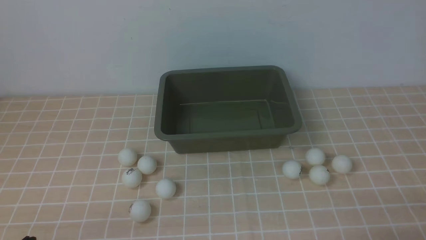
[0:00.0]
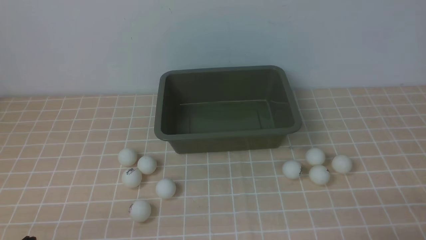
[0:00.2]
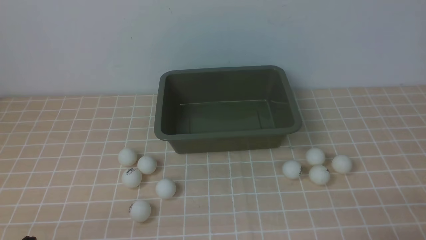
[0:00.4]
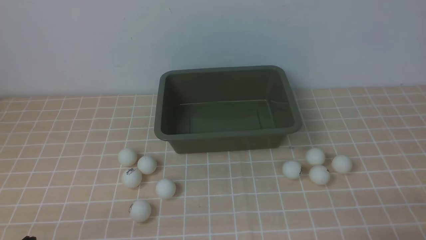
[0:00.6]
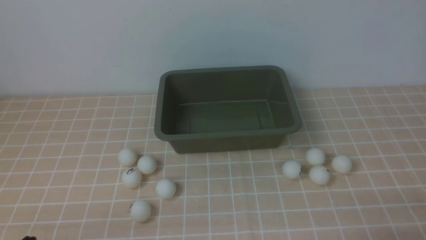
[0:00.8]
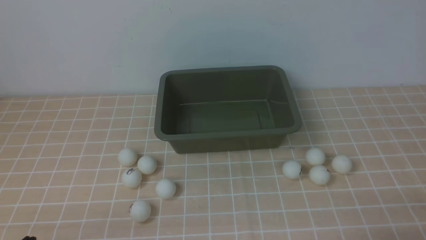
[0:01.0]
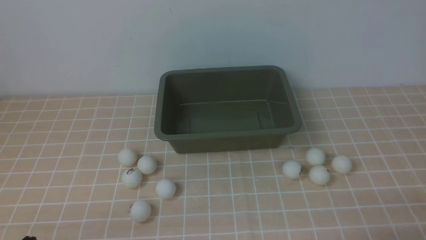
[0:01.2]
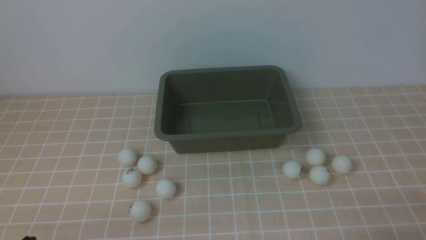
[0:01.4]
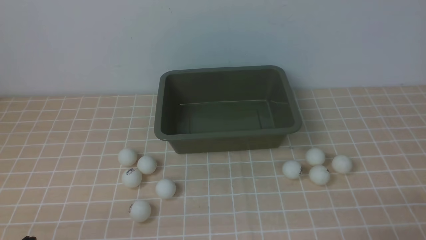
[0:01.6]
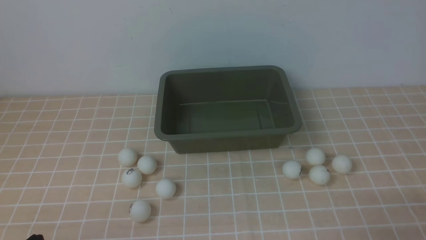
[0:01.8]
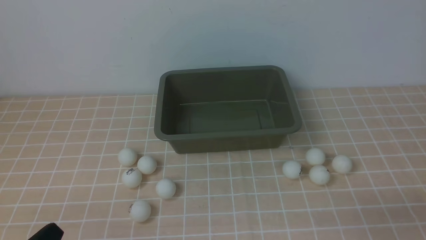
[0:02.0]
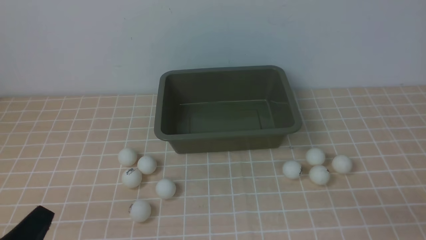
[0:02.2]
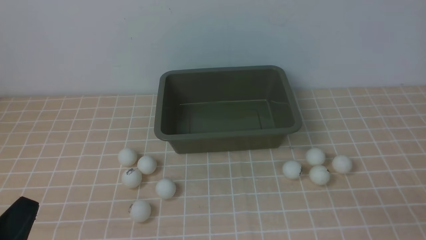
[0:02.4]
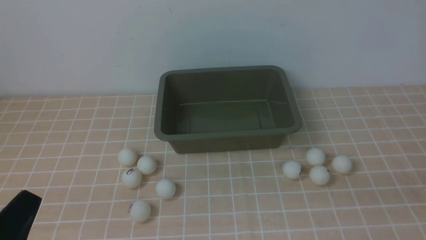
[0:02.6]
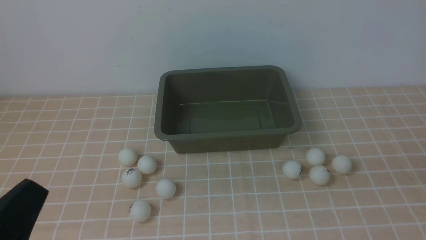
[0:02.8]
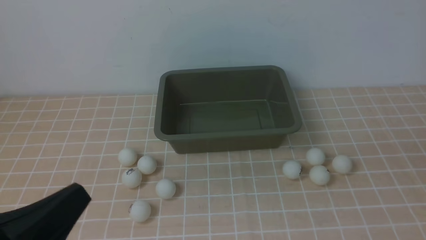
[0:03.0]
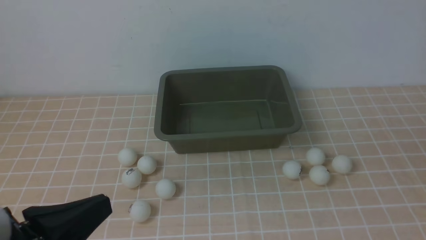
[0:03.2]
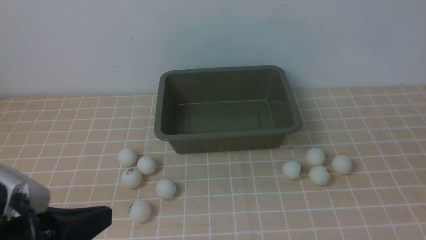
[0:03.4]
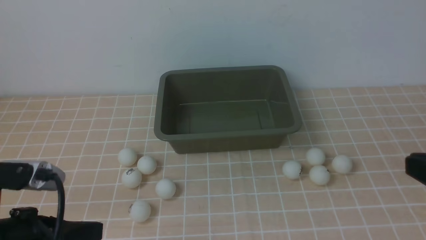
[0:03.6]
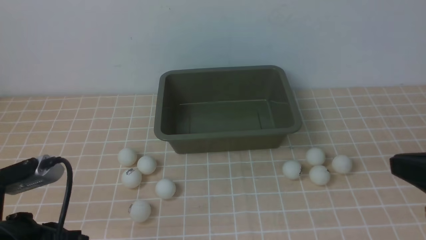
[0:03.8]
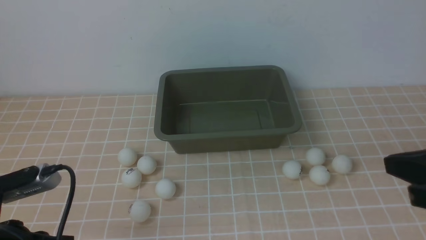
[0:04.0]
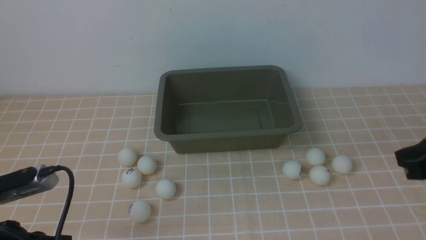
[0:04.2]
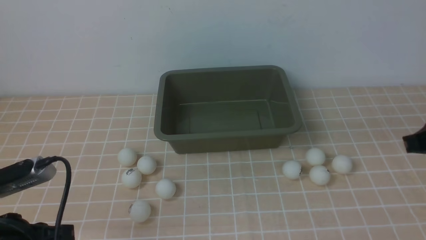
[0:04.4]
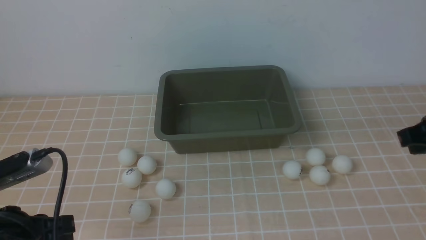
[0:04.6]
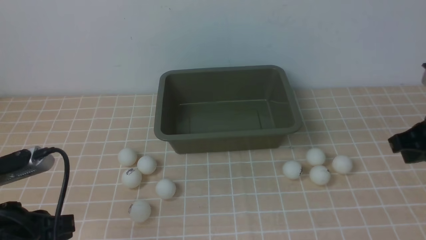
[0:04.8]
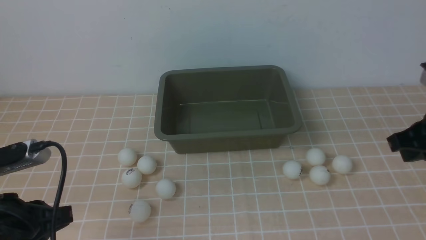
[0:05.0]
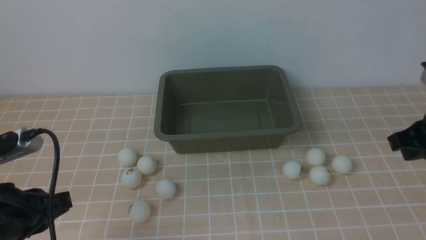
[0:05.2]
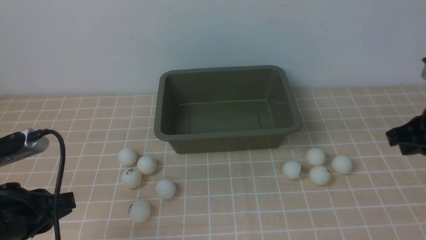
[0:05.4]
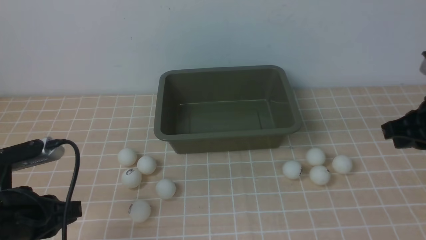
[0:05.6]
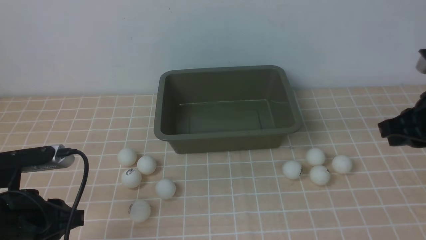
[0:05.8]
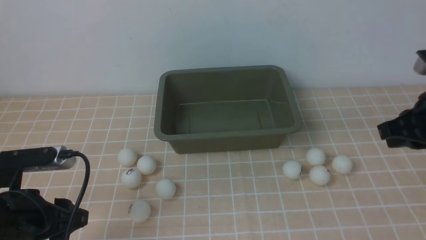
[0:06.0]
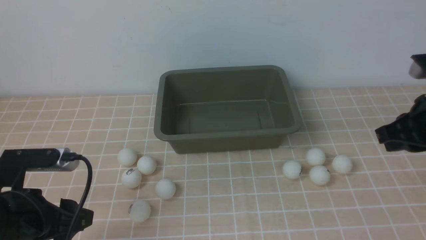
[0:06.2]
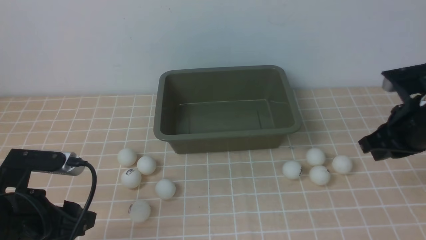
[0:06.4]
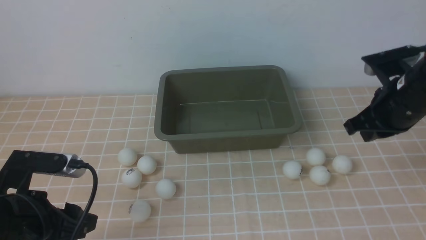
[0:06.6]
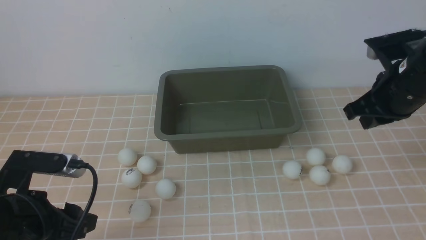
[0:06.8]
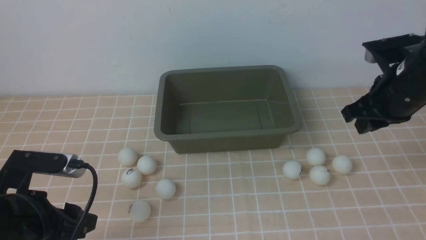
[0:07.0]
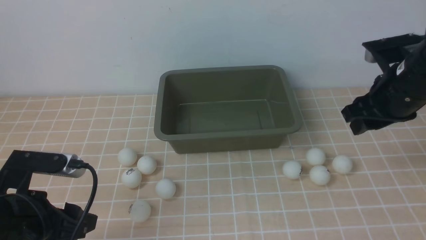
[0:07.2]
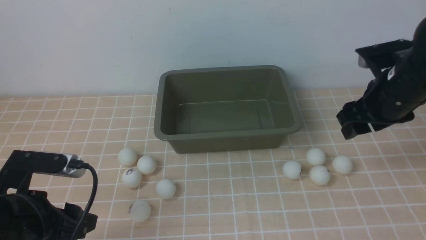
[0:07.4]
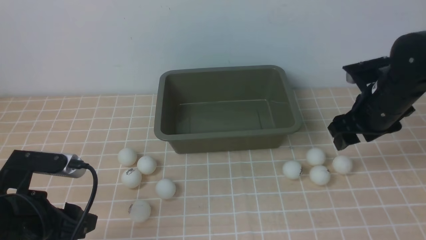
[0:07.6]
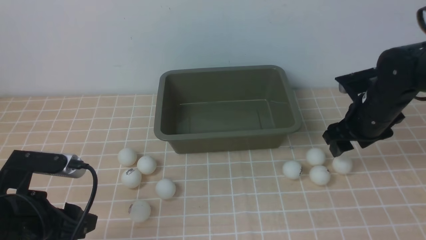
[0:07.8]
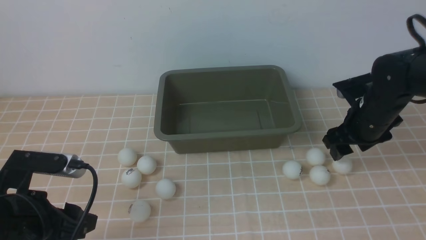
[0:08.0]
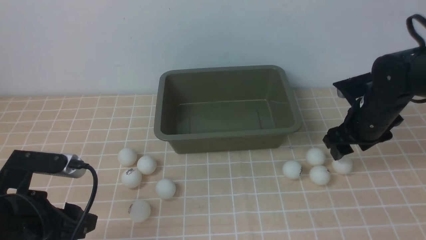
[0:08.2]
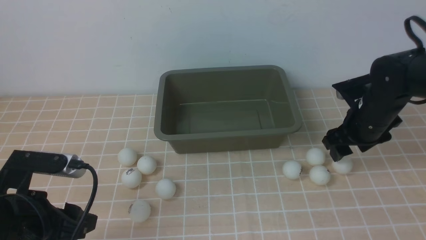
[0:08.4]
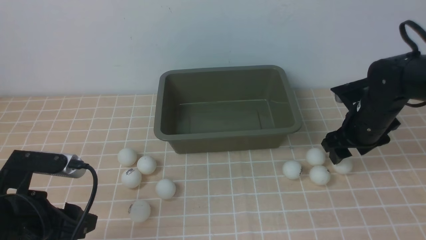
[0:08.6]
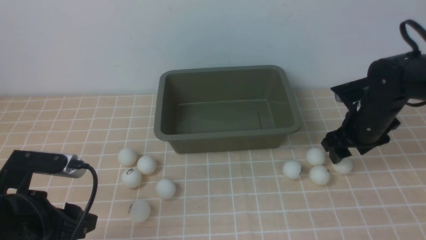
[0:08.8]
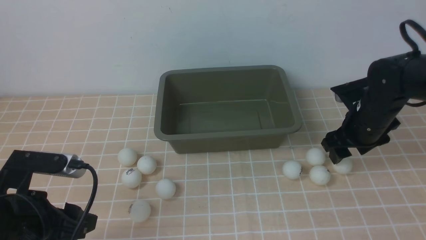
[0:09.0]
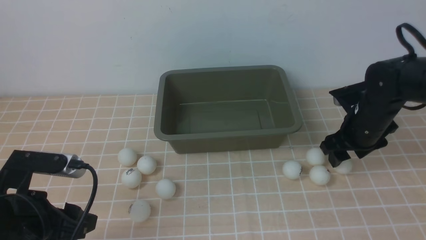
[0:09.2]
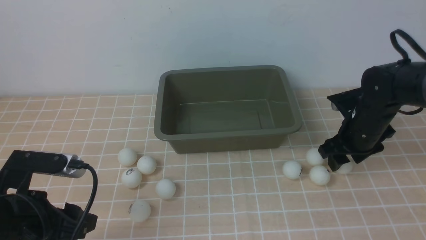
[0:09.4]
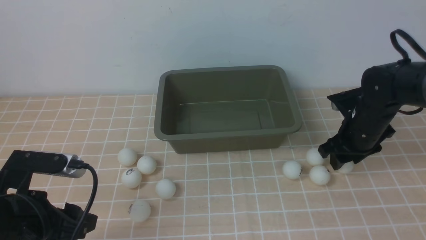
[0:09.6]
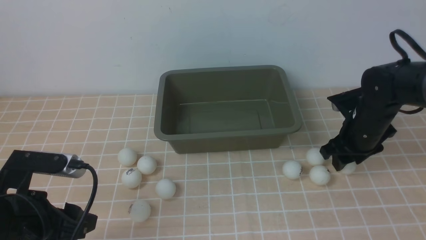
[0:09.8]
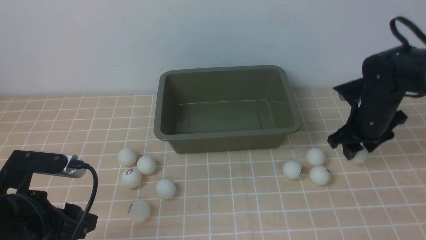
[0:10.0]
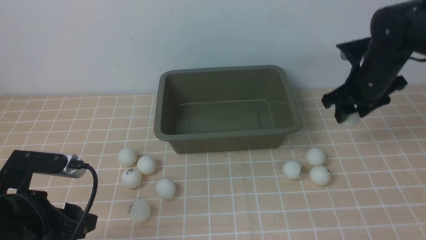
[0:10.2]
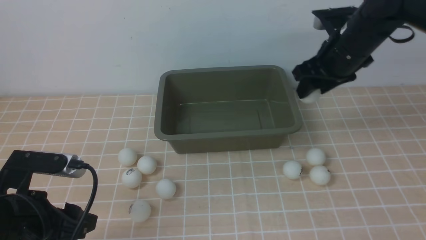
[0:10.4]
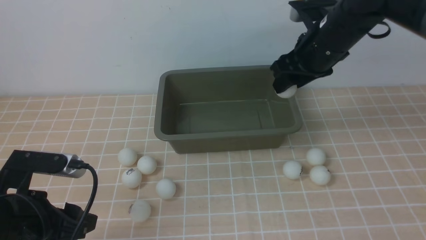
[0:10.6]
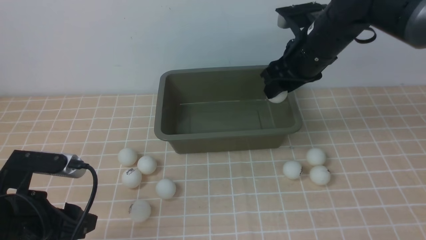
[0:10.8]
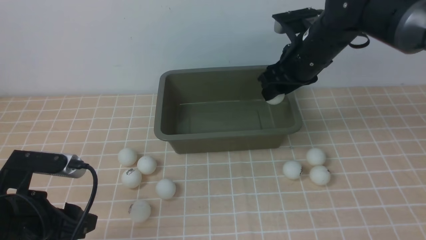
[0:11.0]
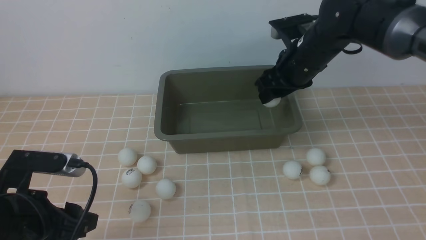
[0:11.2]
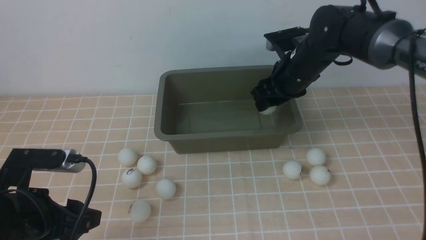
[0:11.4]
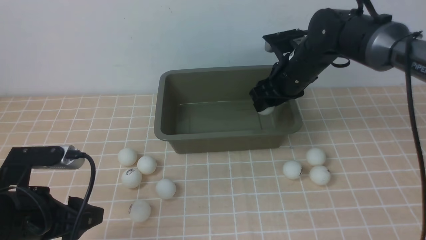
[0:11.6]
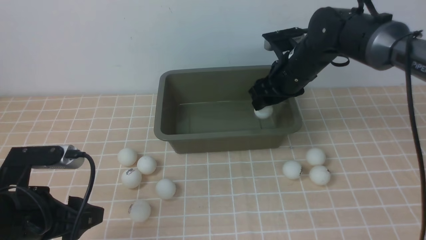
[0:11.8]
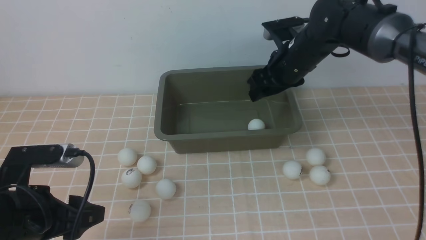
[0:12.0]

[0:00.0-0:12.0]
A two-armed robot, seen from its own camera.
Step, 0:00.0 to 0:10.2: use the right arm to clamp the table tennis ball closest to it.
0:01.6 to 0:03.0: The left gripper goes some 10 cm upward.
0:03.0 to 0:04.4: The left gripper shifts about 10 cm forward.
0:04.4 to 0:06.0: The left gripper opens its fingers, while the right gripper goes some 5 cm forward.
0:06.0 to 0:07.6: The right gripper goes roughly 10 cm forward, and opens, while the left gripper opens its fingers.
0:07.6 to 0:09.0: The right gripper shifts about 5 cm downward.
0:09.0 to 0:10.4: The right gripper travels upward by some 10 cm.
0:10.4 to 0:12.0: The right gripper travels to the left by about 10 cm.

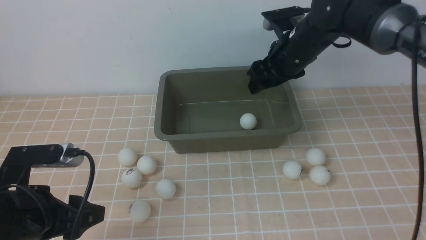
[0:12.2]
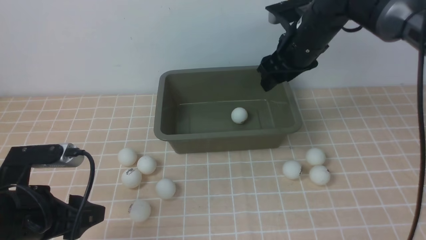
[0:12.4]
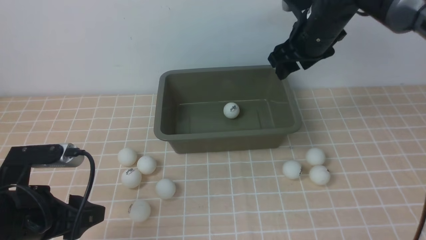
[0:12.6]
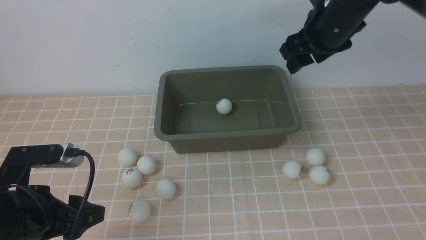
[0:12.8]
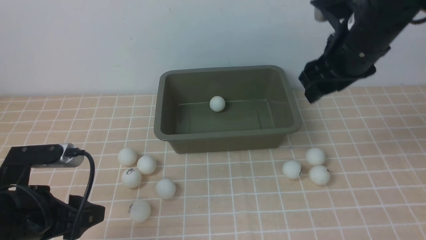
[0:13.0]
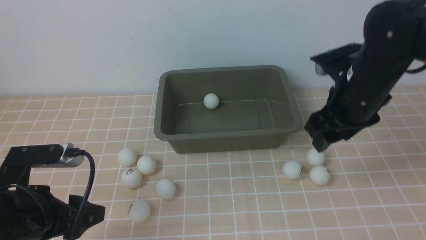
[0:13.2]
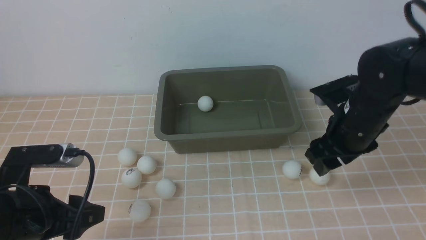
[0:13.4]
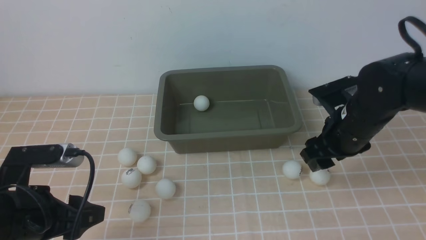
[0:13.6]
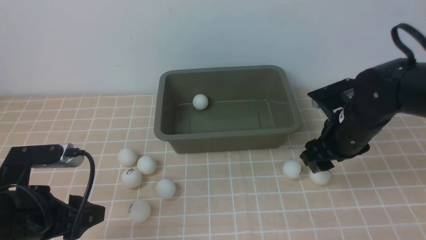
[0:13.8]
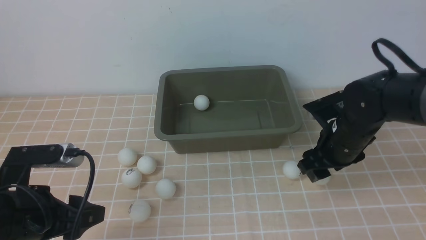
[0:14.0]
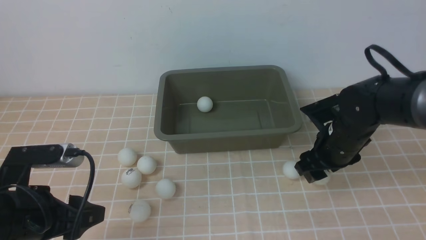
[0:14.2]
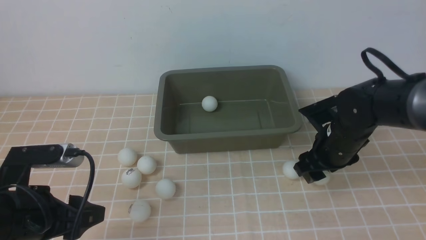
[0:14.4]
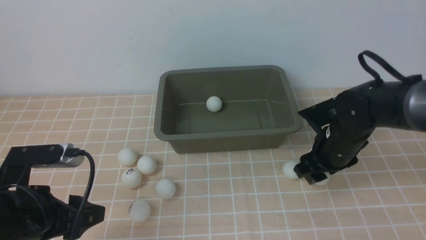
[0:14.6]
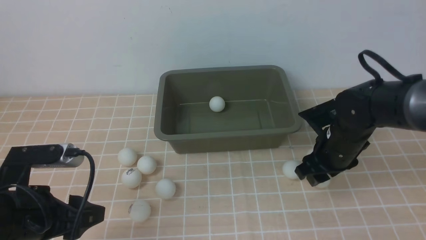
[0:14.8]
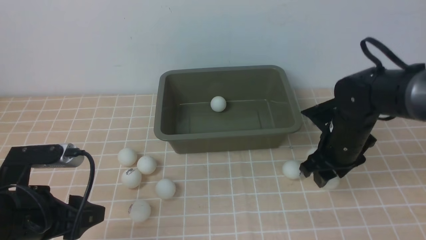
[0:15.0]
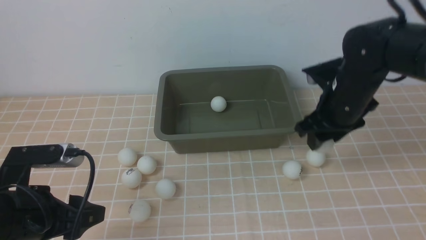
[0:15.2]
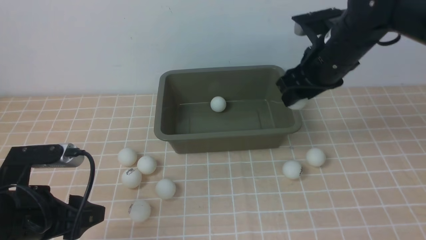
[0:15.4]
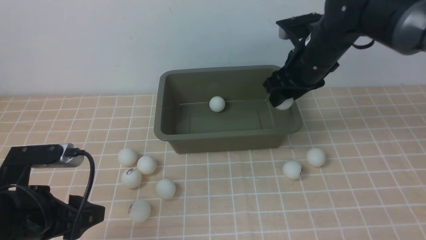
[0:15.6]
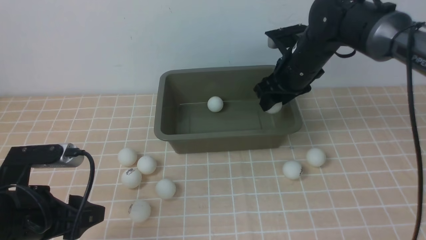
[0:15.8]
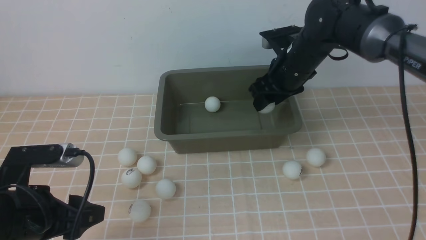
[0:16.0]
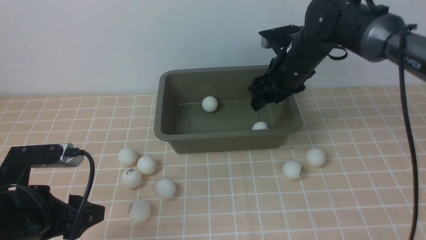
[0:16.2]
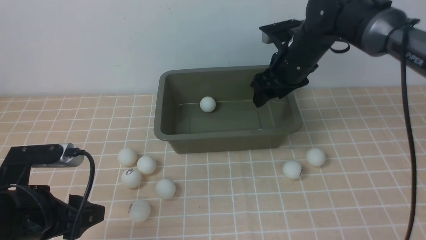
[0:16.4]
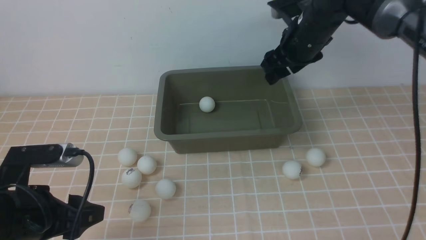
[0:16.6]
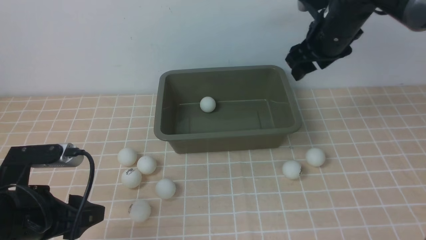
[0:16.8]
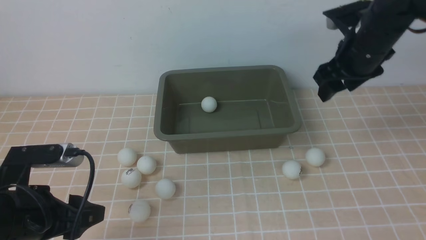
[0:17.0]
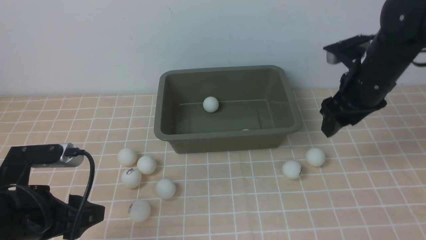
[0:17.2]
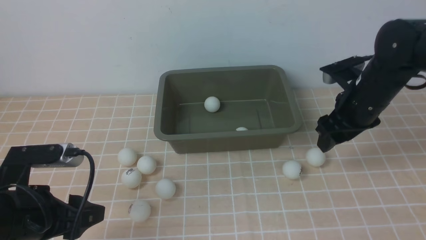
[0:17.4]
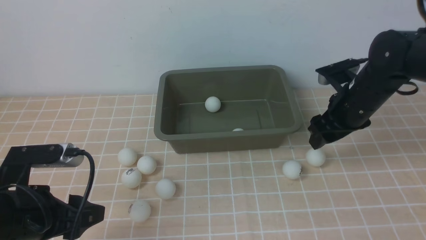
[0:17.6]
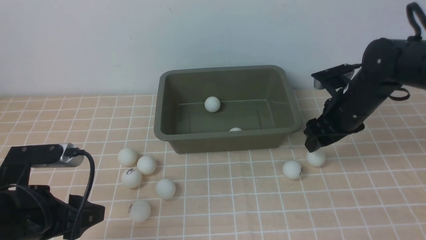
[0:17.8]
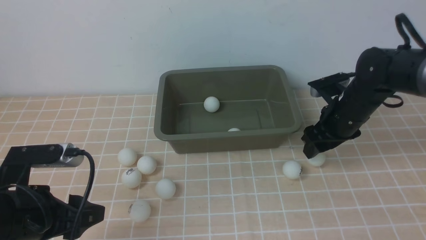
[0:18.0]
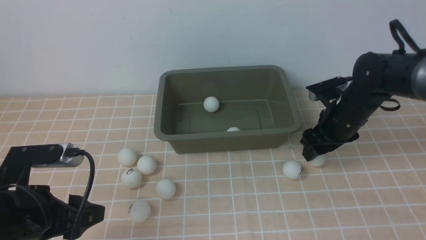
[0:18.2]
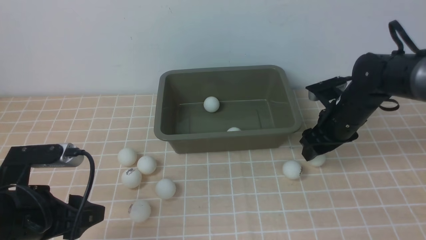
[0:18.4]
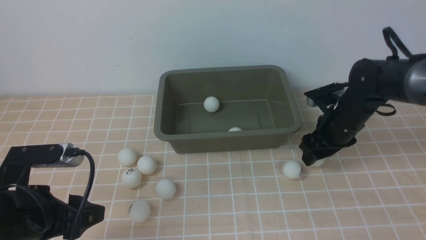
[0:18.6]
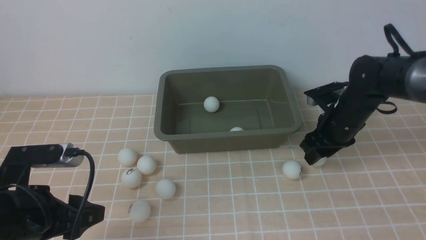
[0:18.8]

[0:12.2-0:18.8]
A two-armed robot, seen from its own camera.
Step, 0:12.2 to 0:15.0: use the right arm to clamp the table tennis ball closest to it.
Step, 0:15.2 to 0:16.4: use the right arm to put the table tennis ball into the box.
0:12.2 to 0:13.8: The right gripper heads backward, to the right and downward, covering approximately 15 cm.
0:13.8 to 0:15.4: The right gripper moves upward, some 5 cm.
0:15.4 to 0:17.2: The right gripper moves to the right, roughly 5 cm.
0:17.2 to 0:18.8: The right gripper shifts some 10 cm downward.
